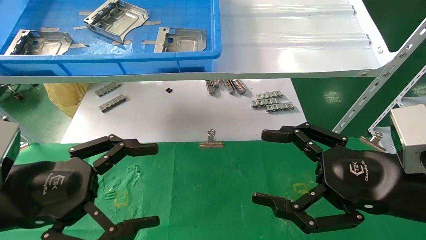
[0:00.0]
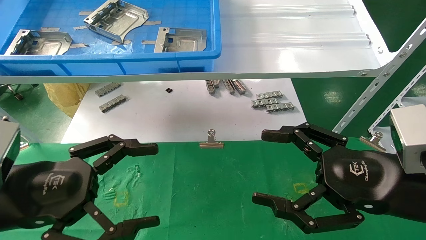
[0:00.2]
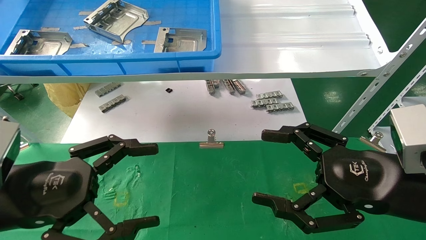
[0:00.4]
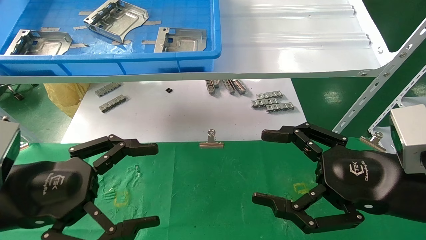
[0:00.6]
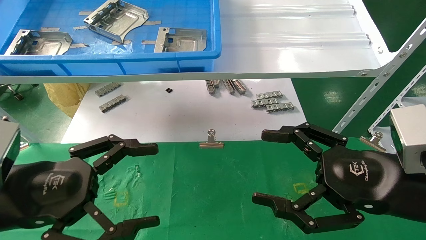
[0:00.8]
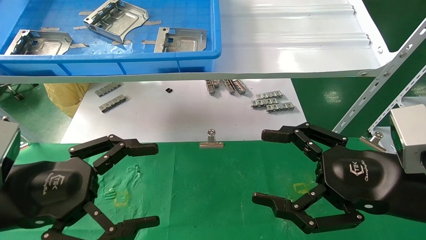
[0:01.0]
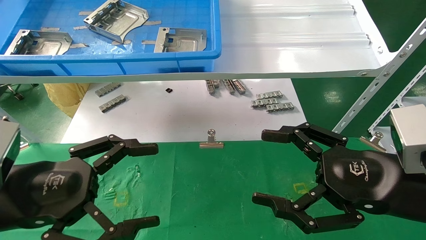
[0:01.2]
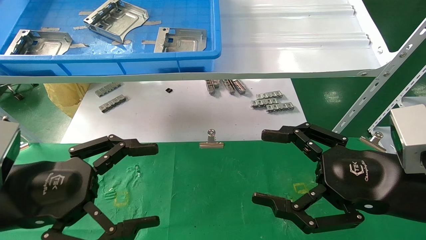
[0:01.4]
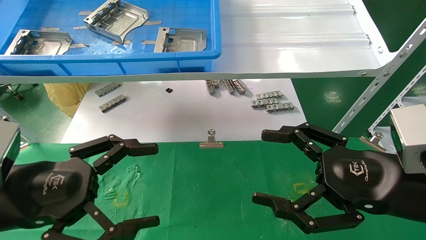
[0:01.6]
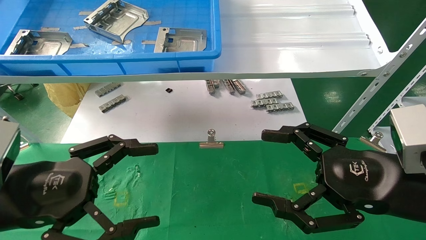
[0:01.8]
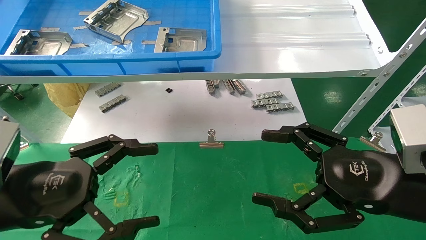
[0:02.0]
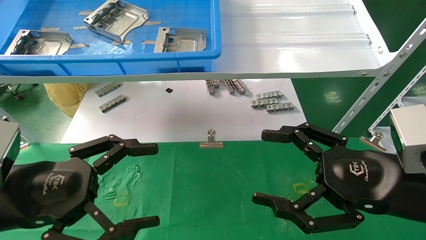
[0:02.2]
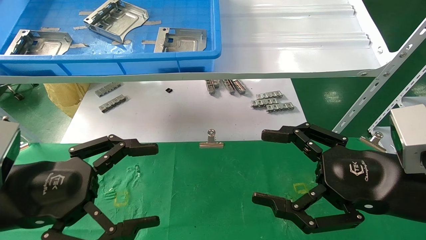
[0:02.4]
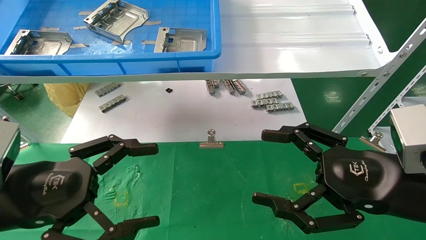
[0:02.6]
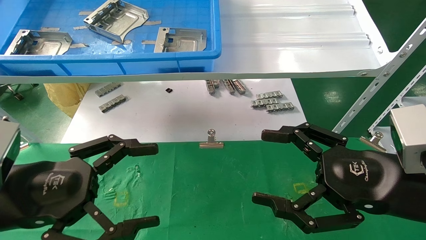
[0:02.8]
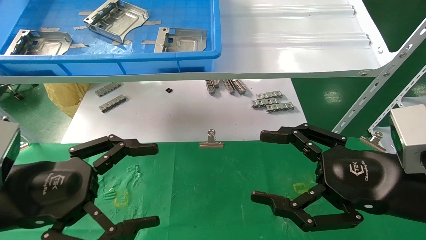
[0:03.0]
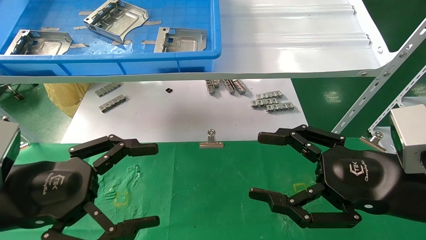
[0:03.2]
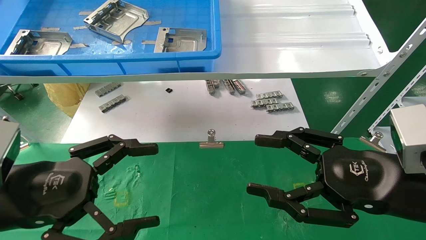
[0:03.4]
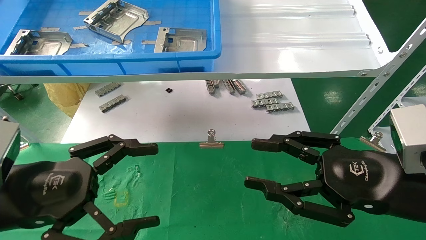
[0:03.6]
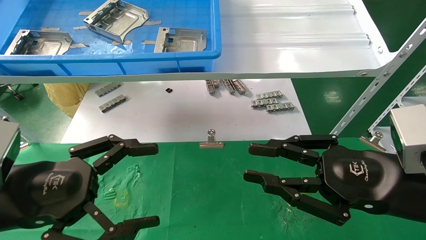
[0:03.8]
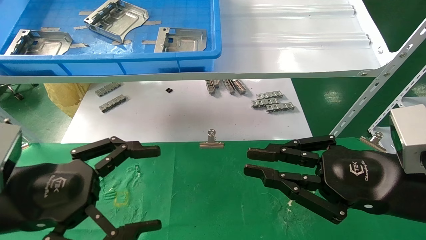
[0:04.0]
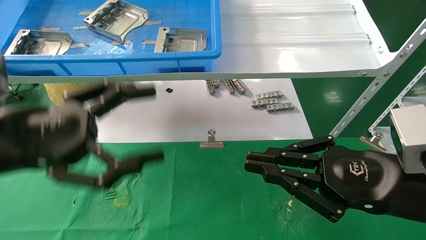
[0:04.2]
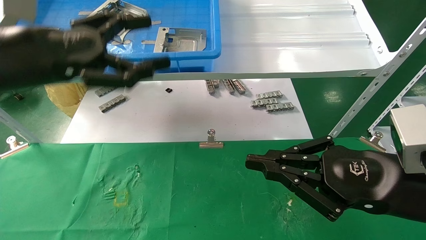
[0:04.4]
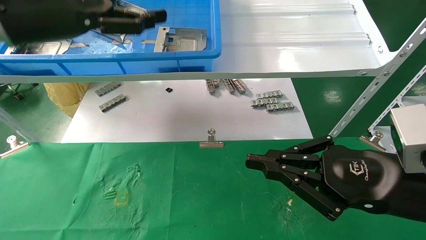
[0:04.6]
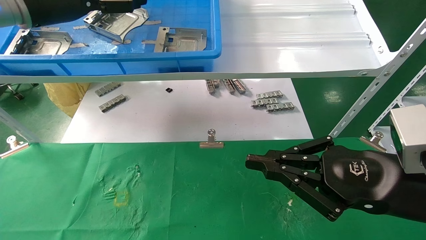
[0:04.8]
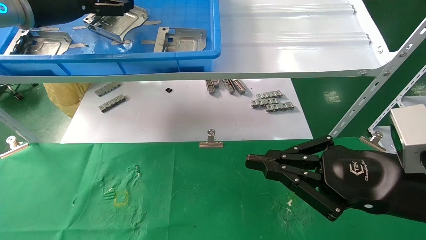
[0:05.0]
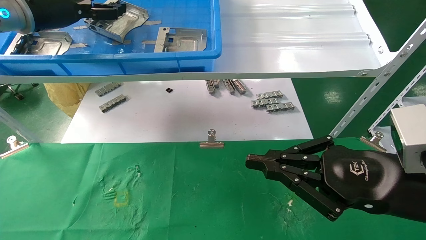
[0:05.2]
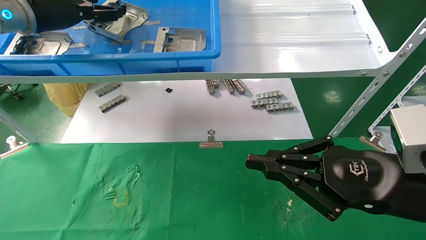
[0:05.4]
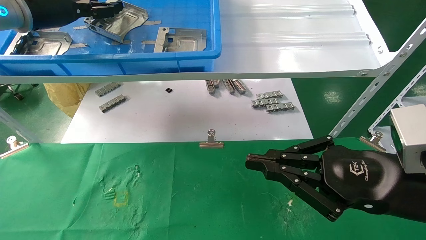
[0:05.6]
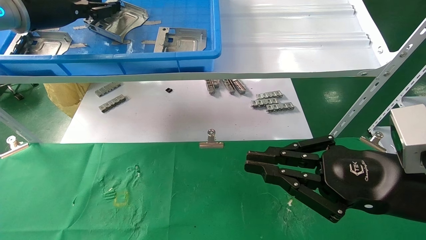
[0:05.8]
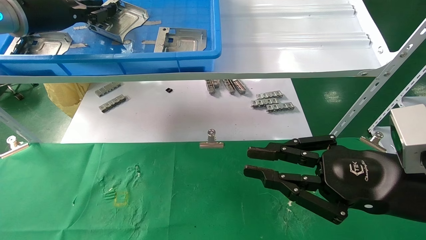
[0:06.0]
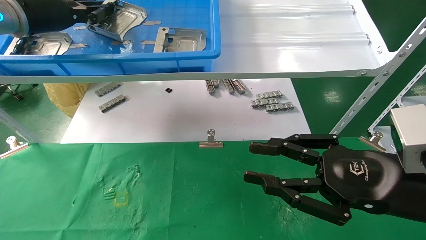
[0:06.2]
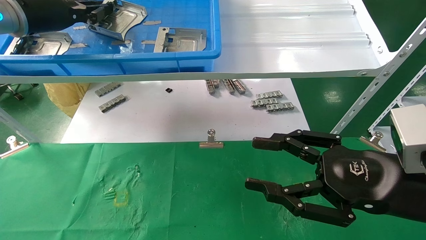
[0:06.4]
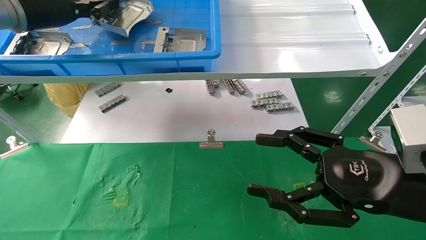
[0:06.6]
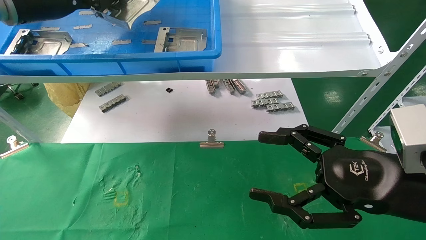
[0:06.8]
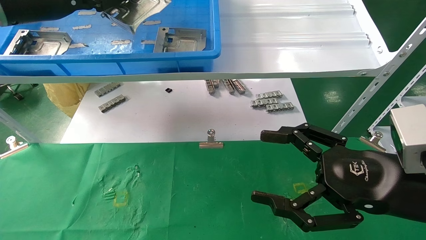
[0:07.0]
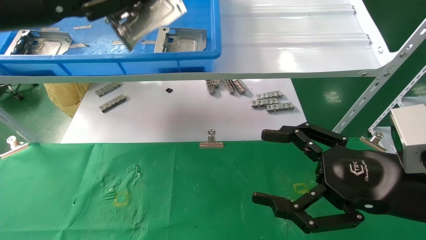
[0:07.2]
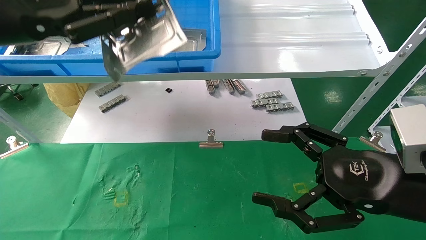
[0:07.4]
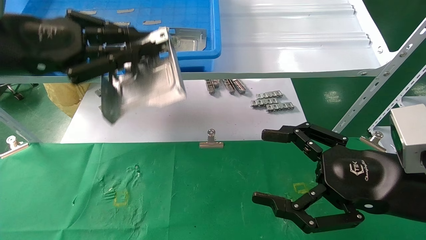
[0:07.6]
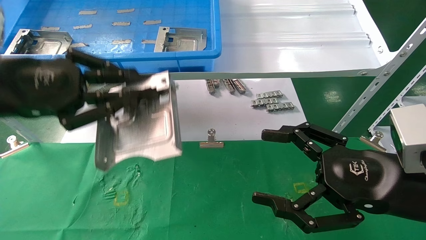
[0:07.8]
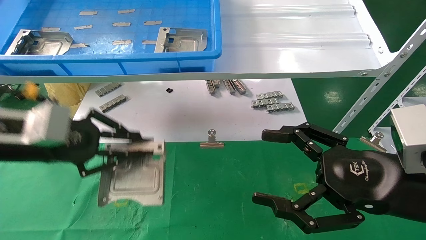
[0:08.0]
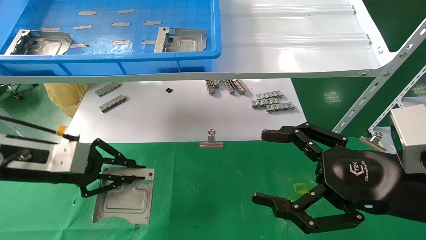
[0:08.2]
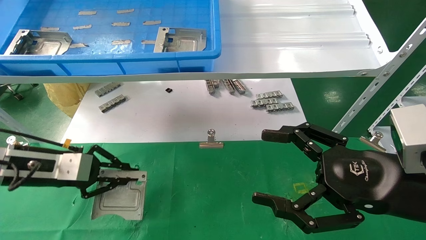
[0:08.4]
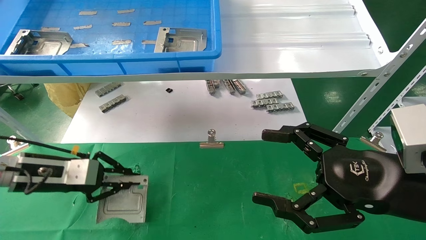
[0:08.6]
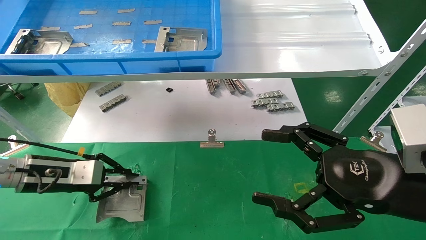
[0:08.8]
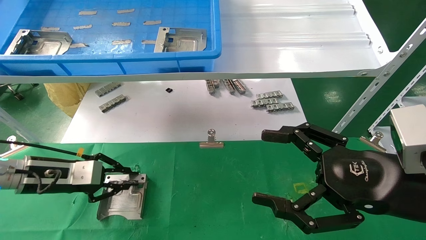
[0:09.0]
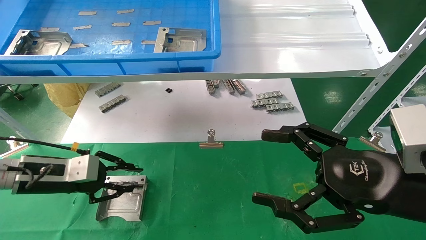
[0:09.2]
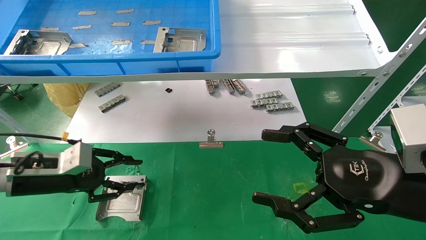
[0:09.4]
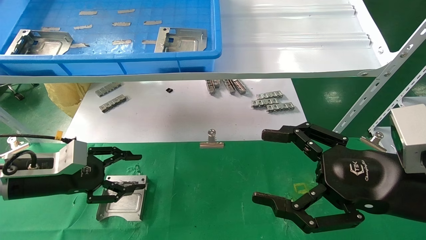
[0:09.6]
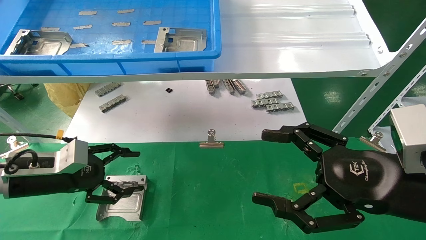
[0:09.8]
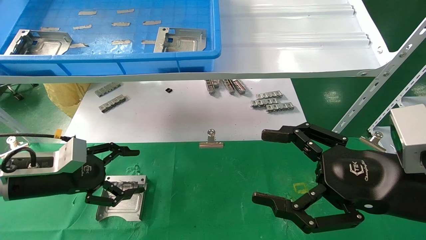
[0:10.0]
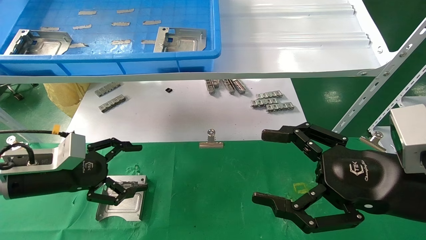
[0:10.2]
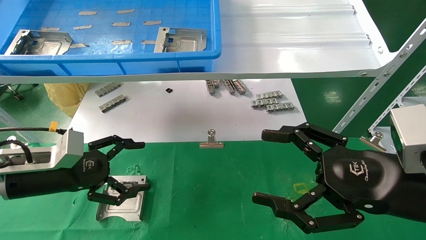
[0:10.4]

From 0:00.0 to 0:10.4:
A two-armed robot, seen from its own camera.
Task of the whole recording: use the mechanical arm to pick up the parts and place them on the table.
Step, from 0:04.4 to 0:06.2: Pick up the hard drive bracket from the feeding area.
Step, from 0:06.4 to 0:09.0: Place the hard drive bracket into the box.
From 0:00.0 to 0:03.0: Neither gripper changes place.
From 0:03.0 to 0:04.4: The right gripper closes its fingers; the left gripper travels upward and forward by about 15 cm.
From 0:04.4 to 0:06.0: The left gripper travels forward and upward by roughly 15 cm, and closes up.
From 0:06.0 to 0:07.4: The right gripper opens up. The left gripper is displaced backward by roughly 15 cm.
From 0:07.4 to 0:09.0: The left gripper moves downward, some 25 cm.
From 0:09.0 to 0:10.4: The left gripper moves some 5 cm, and opens.

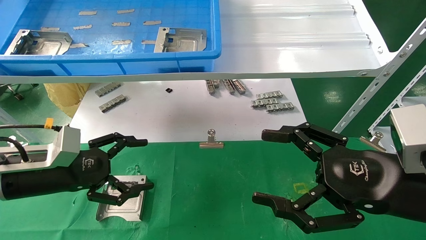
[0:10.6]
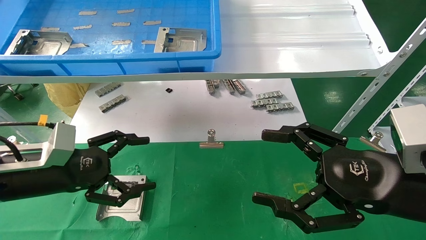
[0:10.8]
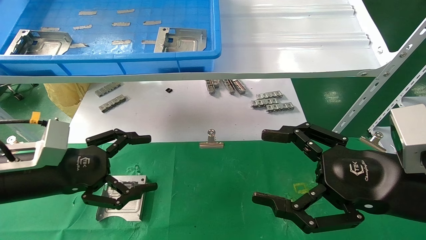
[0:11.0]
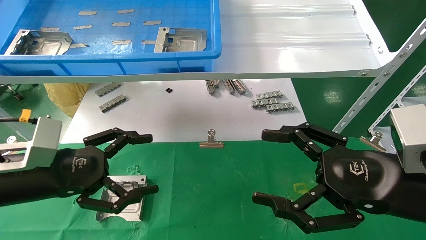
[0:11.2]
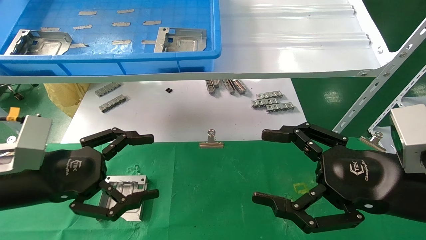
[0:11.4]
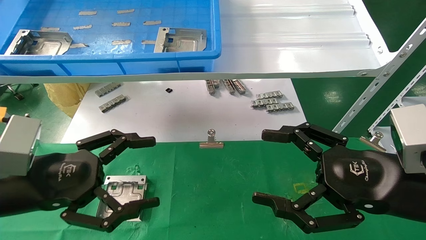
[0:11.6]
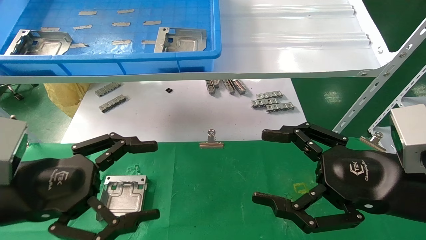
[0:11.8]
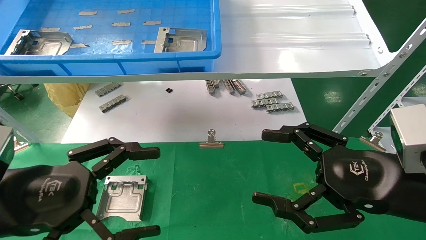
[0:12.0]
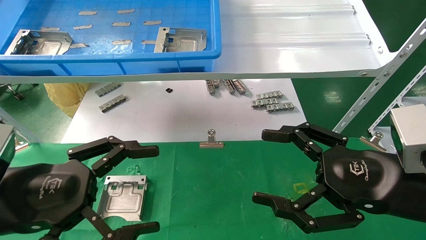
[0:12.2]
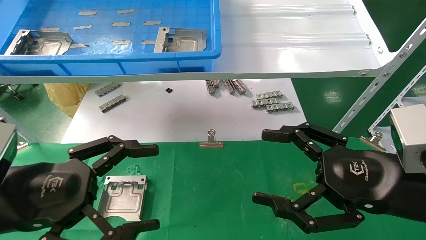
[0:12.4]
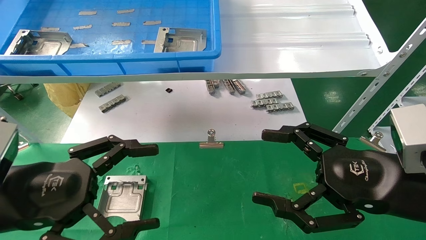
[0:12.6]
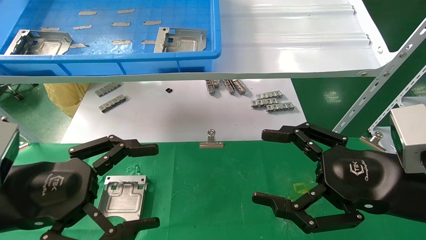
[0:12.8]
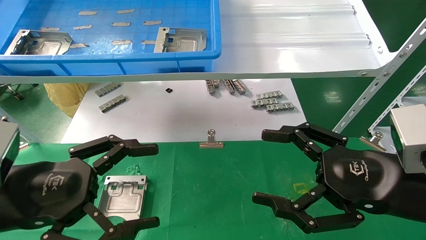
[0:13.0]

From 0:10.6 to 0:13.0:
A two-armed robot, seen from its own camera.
Task of the whole recording: use the mechanical arm to pick up the parts and place them on the table.
From 0:10.6 to 0:11.8: The left gripper moves backward, some 10 cm.
From 0:11.8 to 0:13.0: The grippers stay close to where they were, moving slightly.

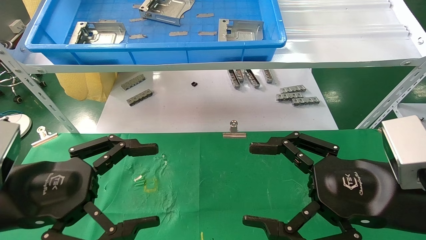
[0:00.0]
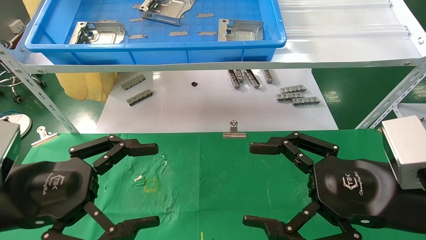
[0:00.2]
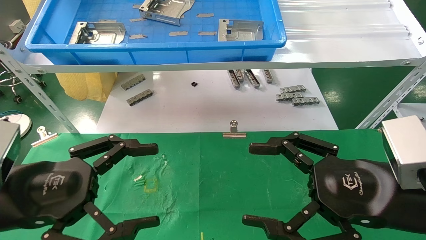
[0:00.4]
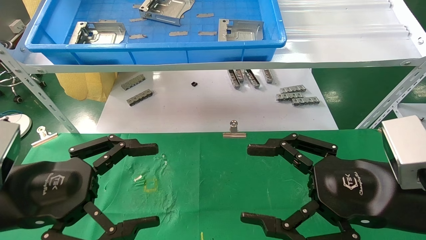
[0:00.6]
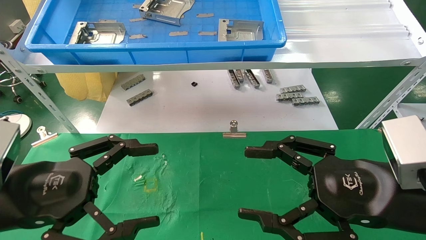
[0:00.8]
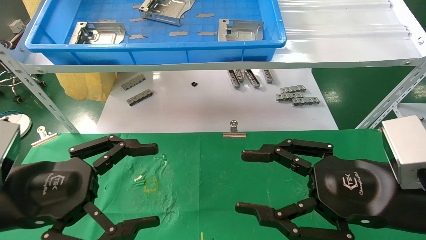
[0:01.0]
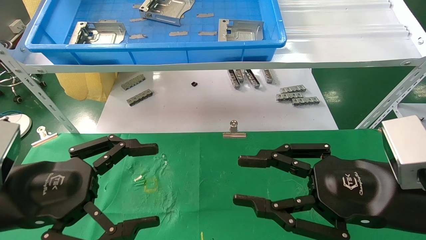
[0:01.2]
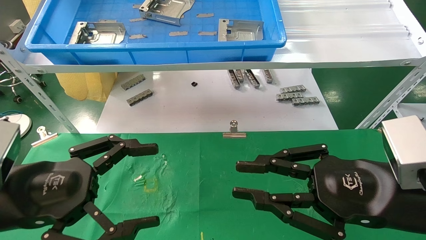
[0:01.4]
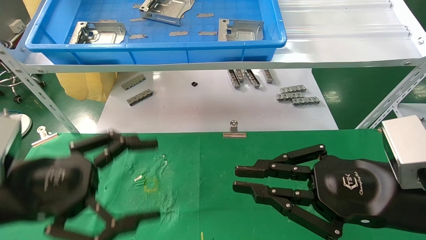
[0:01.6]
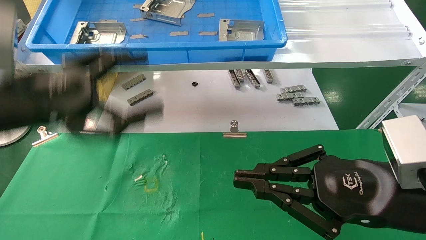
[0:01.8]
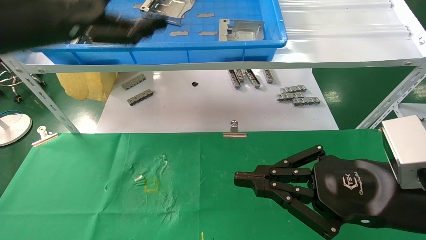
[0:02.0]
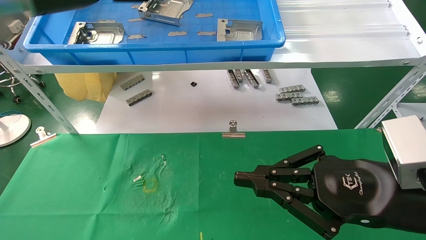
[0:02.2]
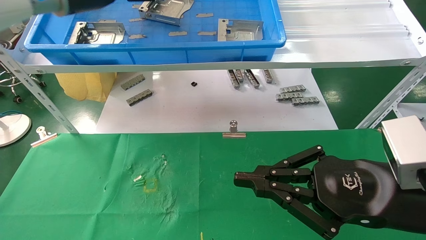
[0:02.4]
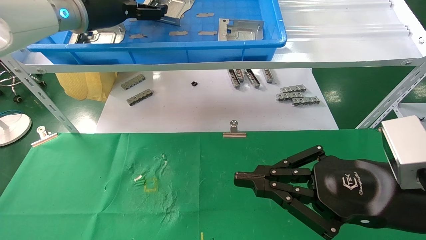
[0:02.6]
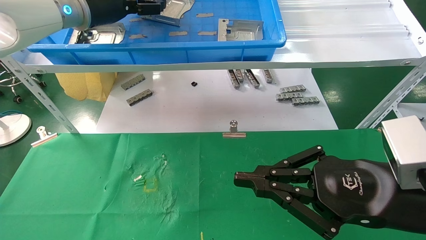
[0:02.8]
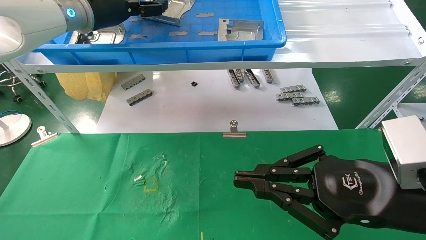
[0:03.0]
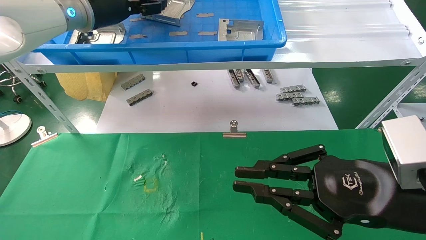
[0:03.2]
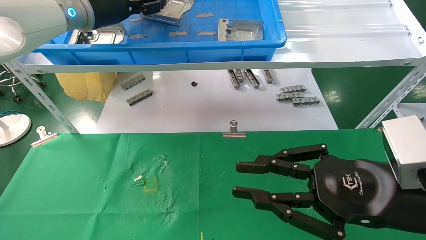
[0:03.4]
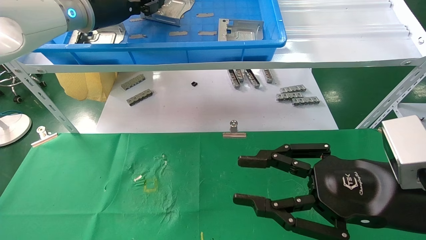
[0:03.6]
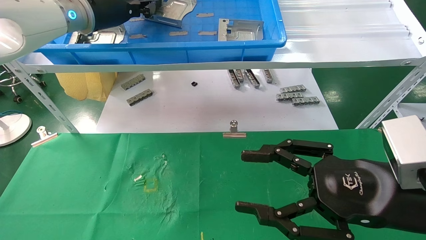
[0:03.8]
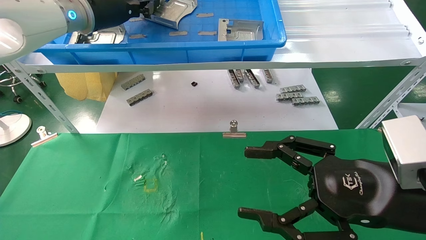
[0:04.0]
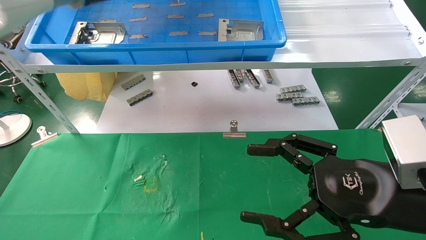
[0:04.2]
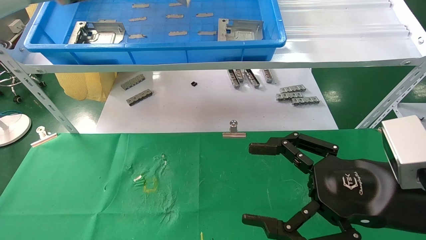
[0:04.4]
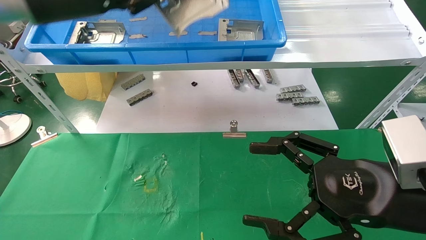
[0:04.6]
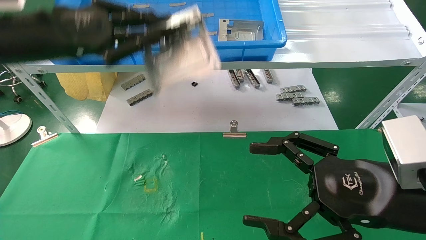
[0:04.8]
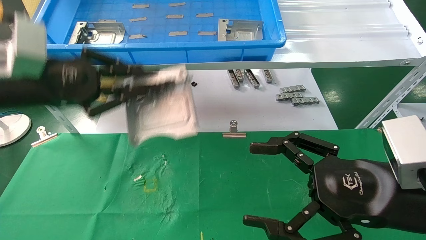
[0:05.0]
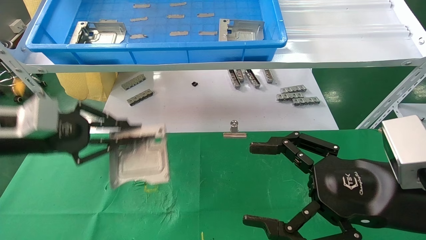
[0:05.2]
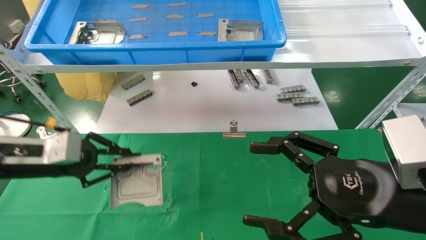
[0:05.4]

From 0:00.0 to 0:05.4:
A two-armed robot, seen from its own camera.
Task of the whole recording: use the mechanical arm to pick up the parts and place them on the table.
Step, from 0:02.0 to 0:04.4: Pick up the hard drive bracket from the feeding area.
From 0:00.0 to 0:01.4: The right gripper closes.
From 0:01.4 to 0:02.8: The left gripper travels forward and upward by some 35 cm, while the right gripper closes up.
From 0:02.8 to 0:04.0: The left gripper closes up, while the right gripper opens its fingers.
From 0:04.0 to 0:05.4: The left gripper moves downward, to the left and backward, about 30 cm.
